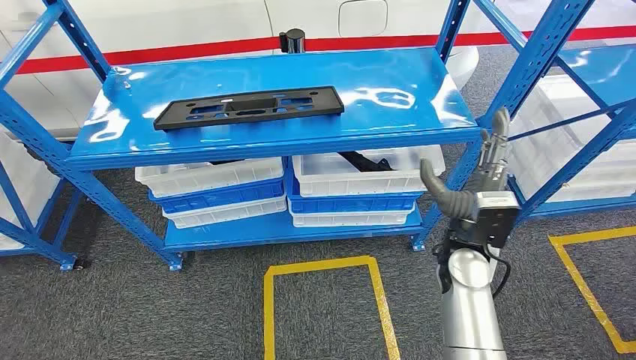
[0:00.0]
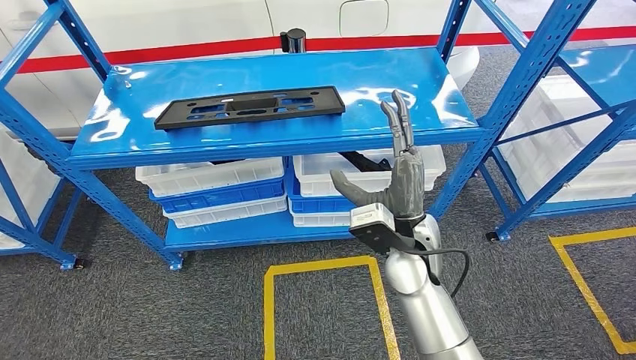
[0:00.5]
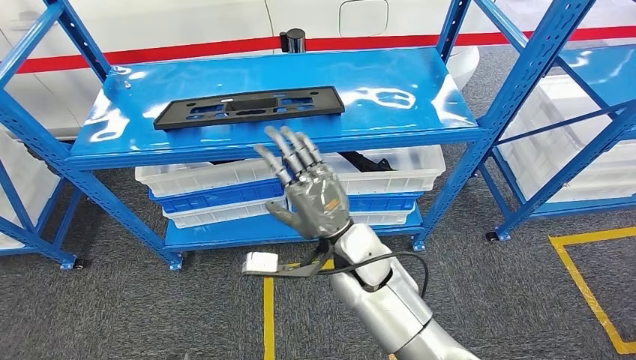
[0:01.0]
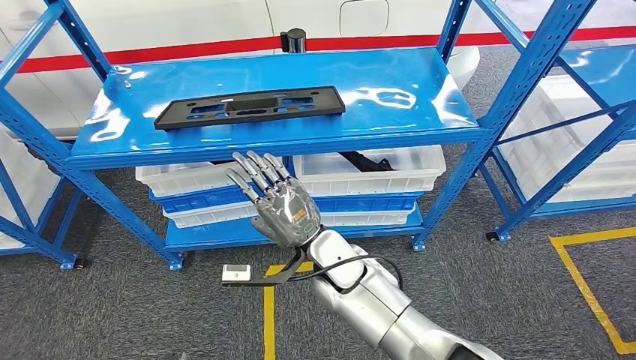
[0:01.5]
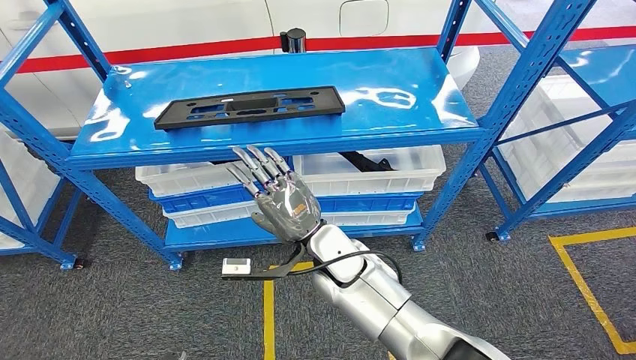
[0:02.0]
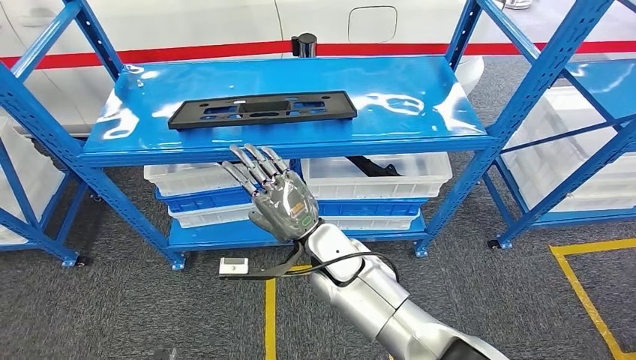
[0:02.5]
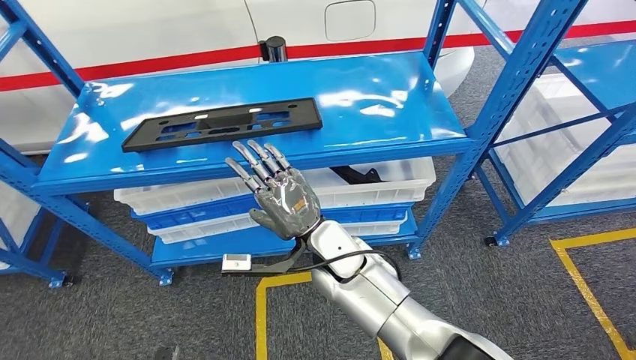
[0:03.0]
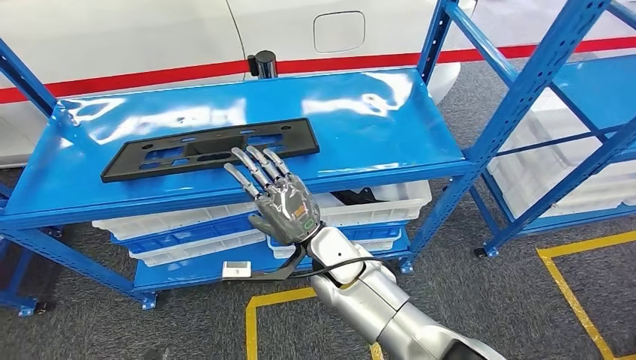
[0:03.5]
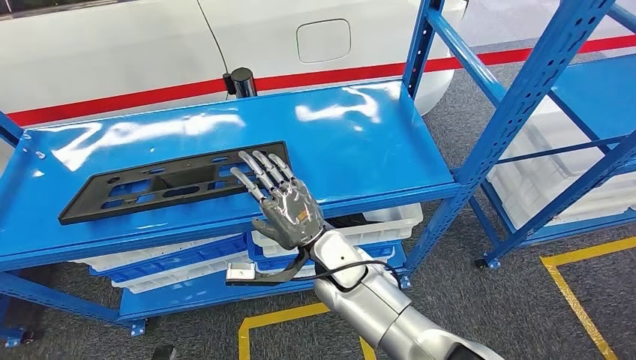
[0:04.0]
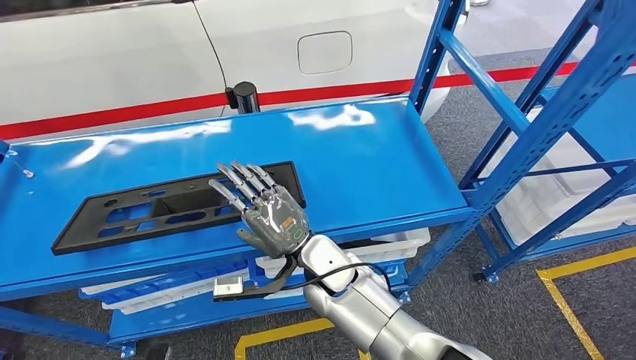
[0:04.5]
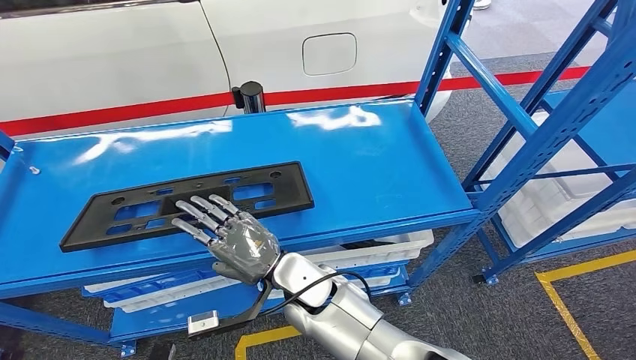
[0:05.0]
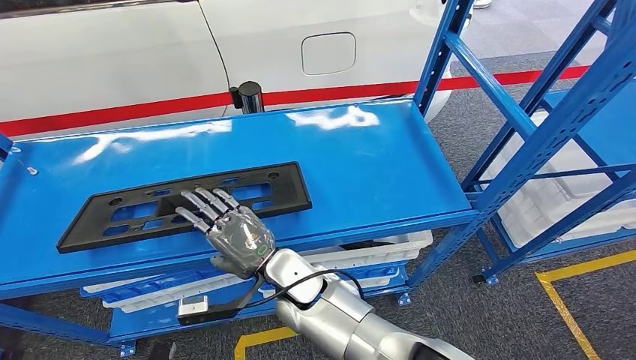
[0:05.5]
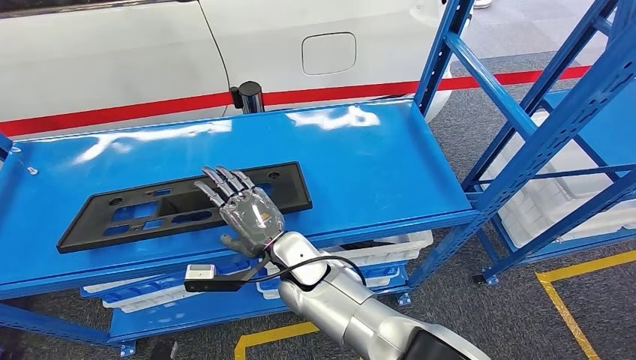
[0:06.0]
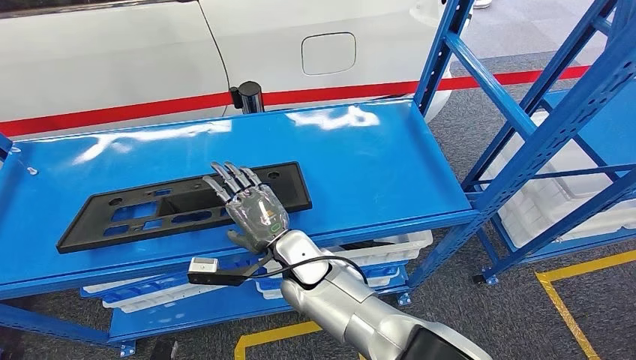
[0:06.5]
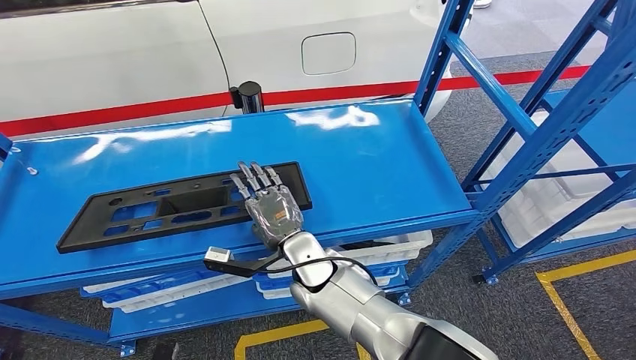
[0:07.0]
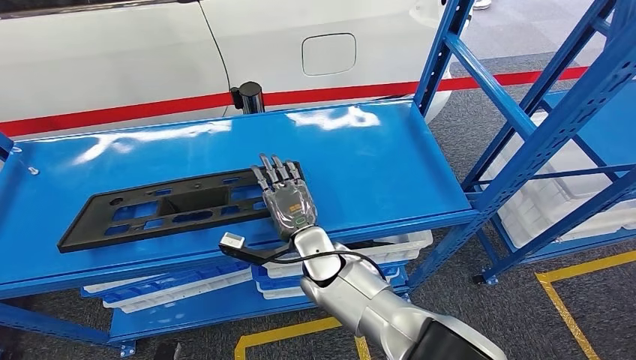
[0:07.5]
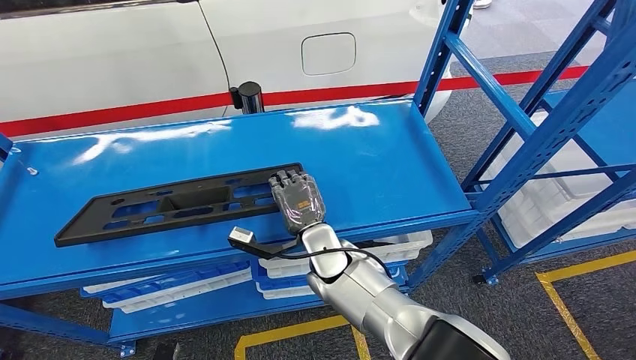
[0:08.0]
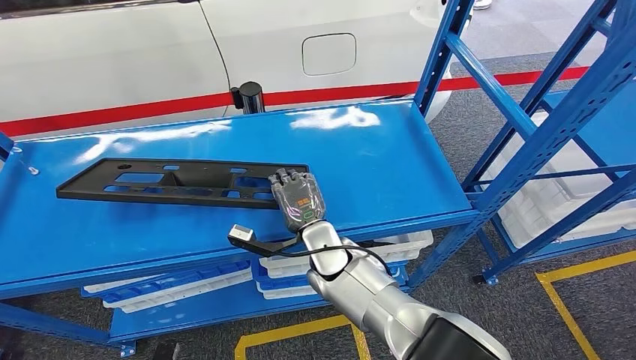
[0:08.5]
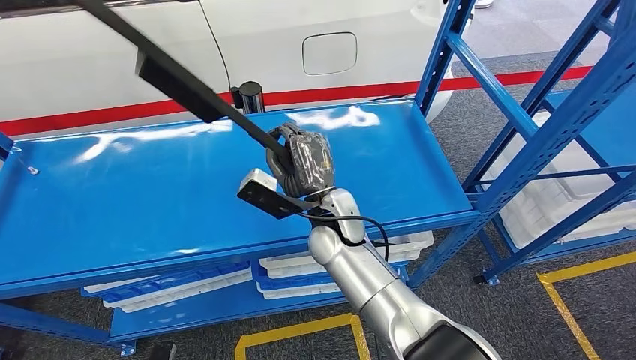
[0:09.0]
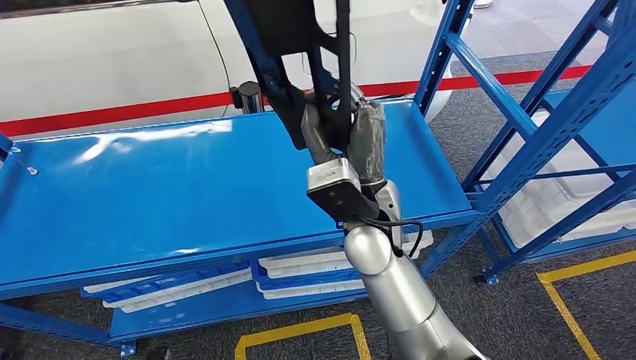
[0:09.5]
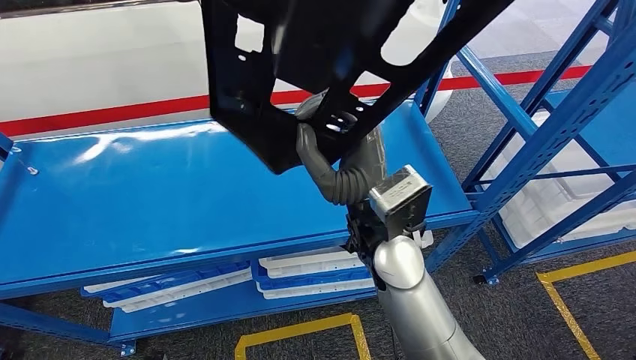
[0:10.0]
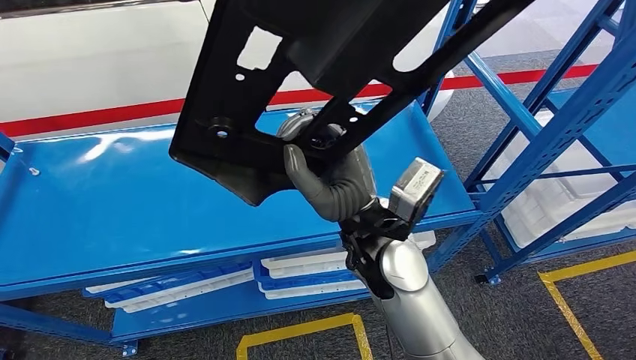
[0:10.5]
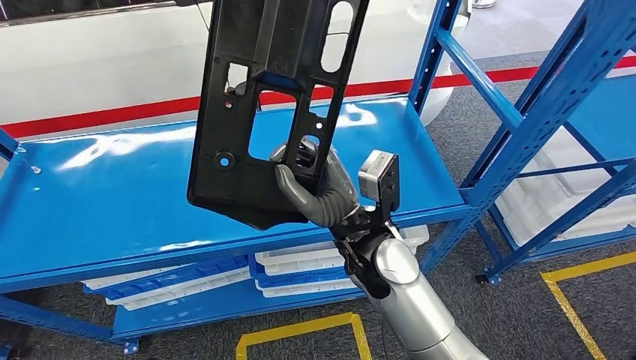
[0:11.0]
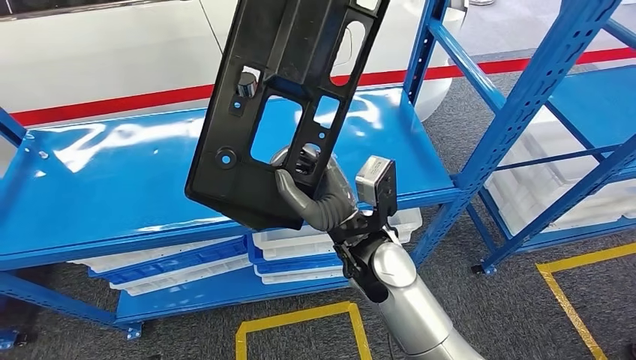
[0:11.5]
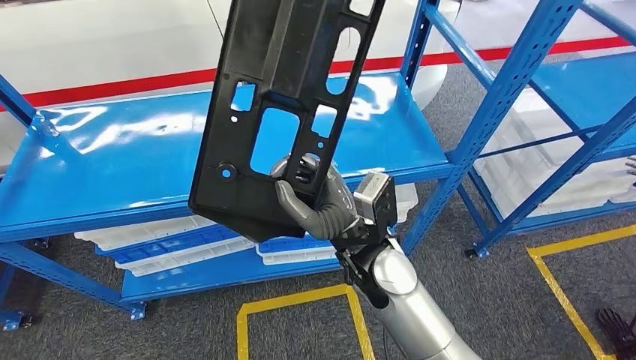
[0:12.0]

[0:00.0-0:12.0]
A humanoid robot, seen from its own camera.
0:06.0 to 0:08.0: The right hand is displaced to the right by some 5 cm.

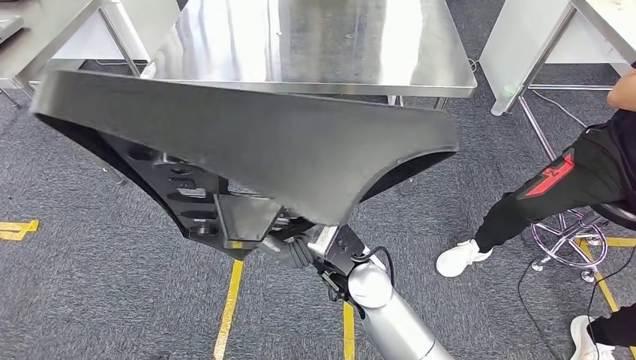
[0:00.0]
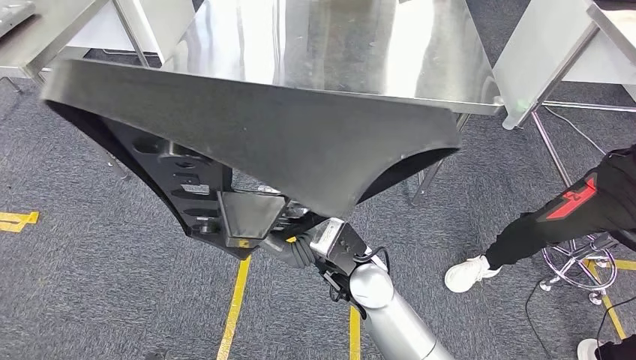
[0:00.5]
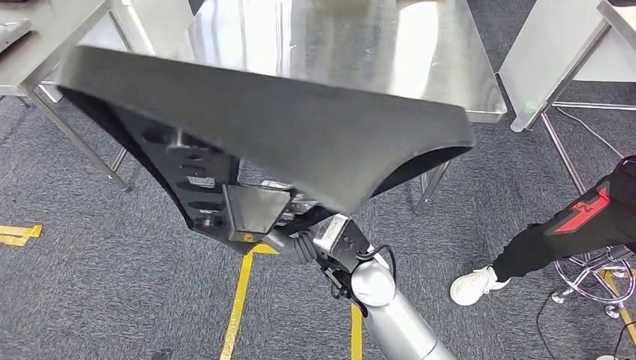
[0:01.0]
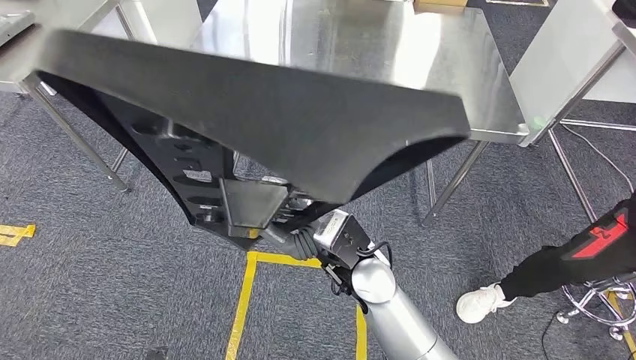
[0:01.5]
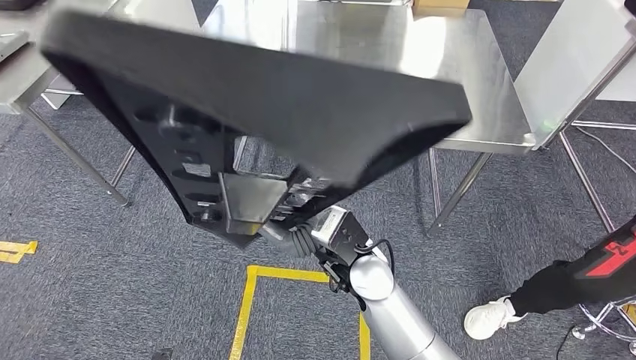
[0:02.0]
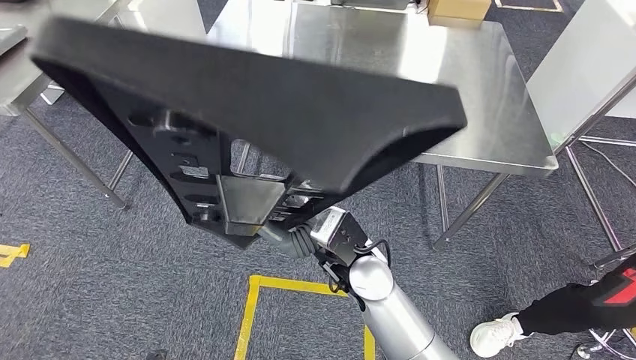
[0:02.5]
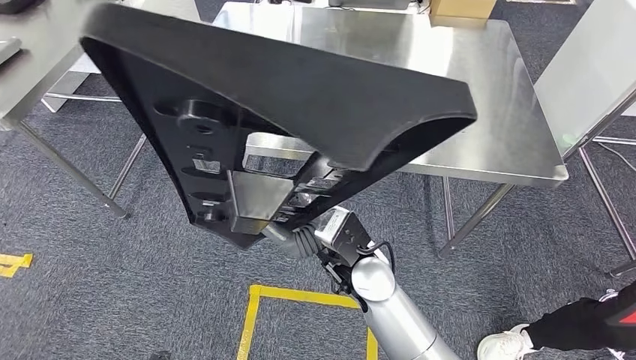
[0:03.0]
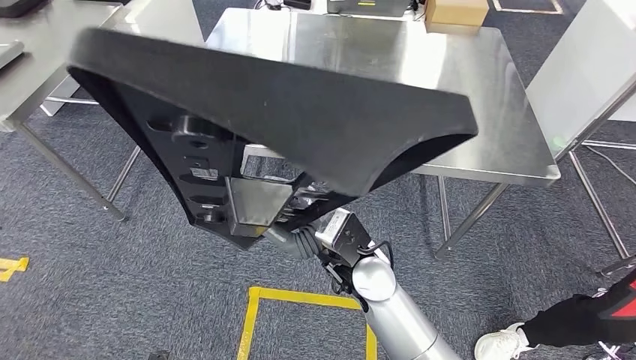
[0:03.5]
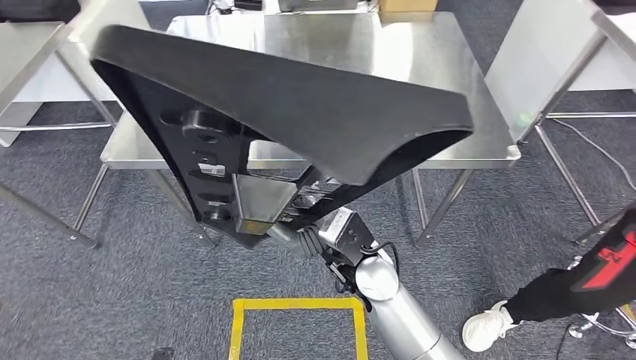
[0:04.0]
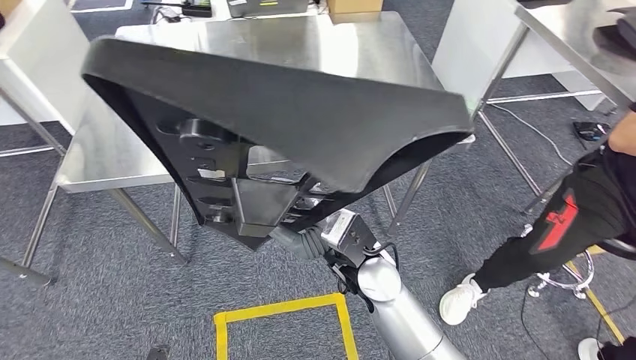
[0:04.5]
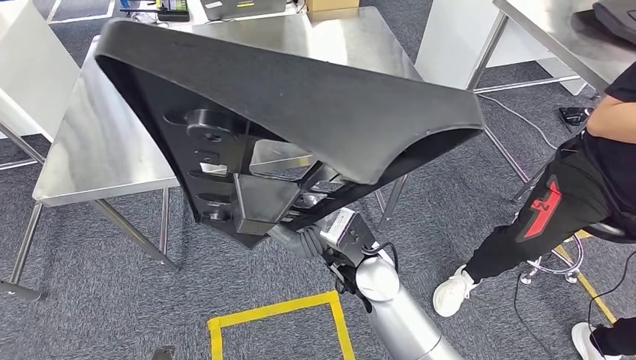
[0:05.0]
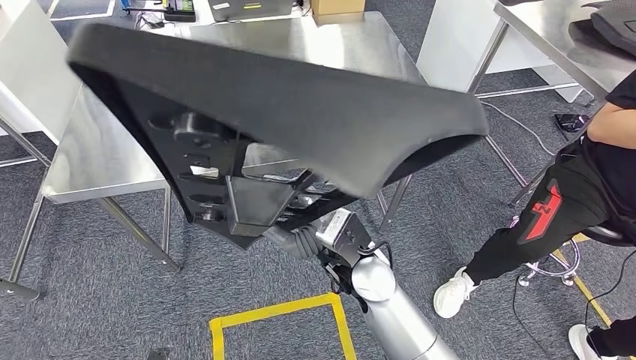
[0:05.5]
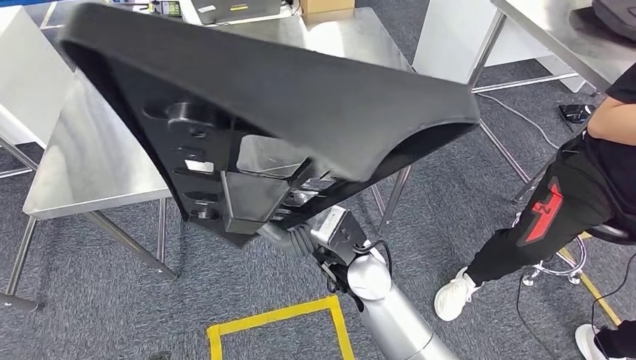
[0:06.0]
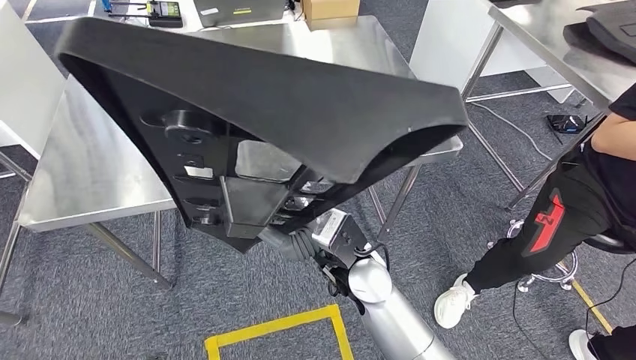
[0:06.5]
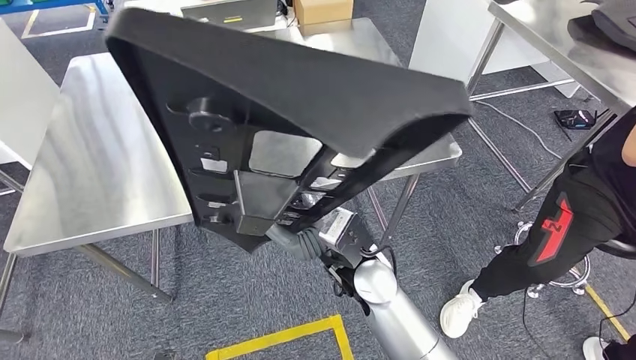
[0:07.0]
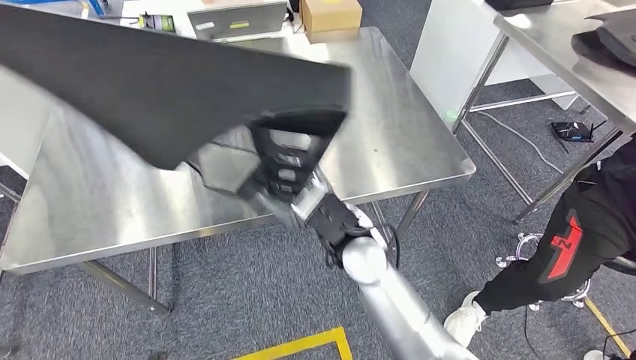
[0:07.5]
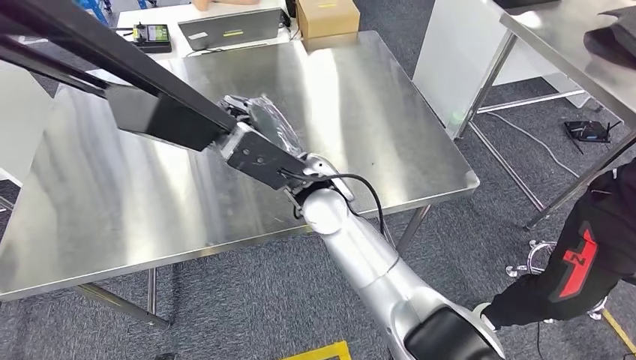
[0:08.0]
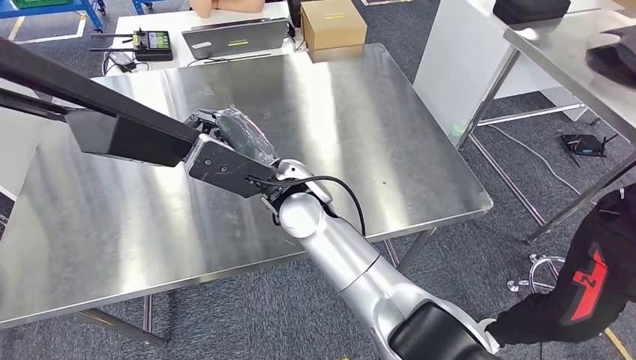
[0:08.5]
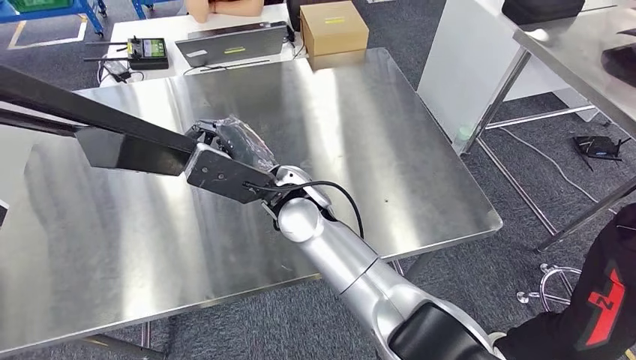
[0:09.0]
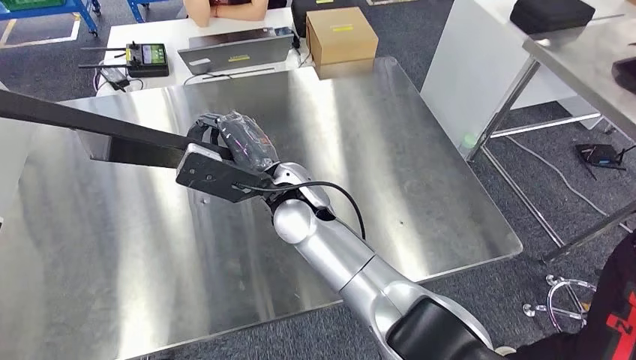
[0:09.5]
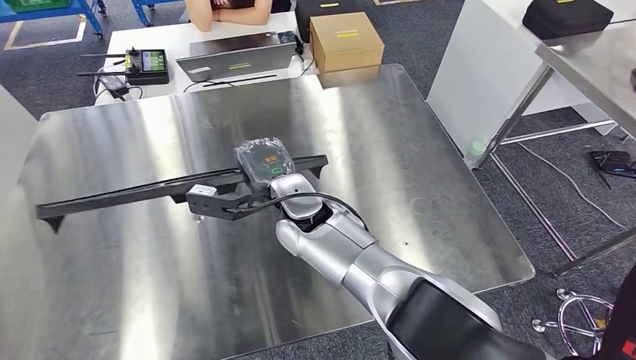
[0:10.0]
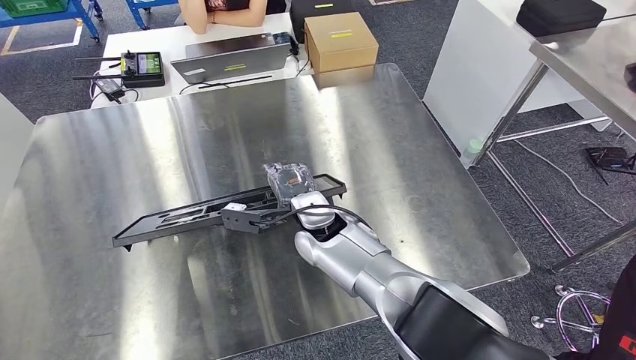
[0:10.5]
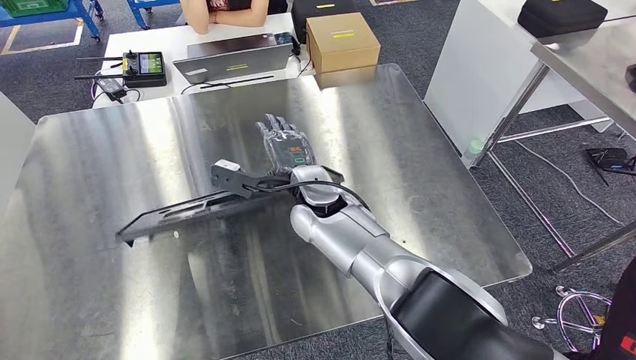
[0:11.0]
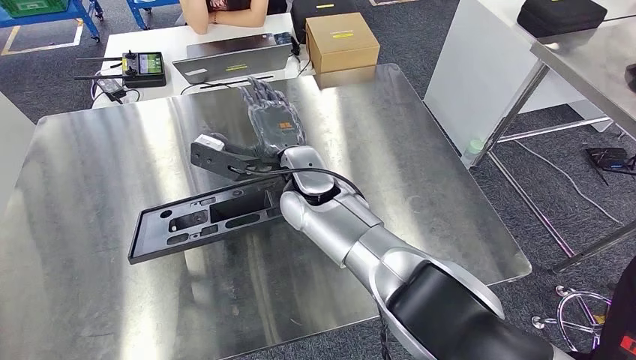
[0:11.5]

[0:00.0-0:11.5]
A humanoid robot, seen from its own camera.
Step, 0:00.0 to 0:04.0: Move the large material to the workbench.
